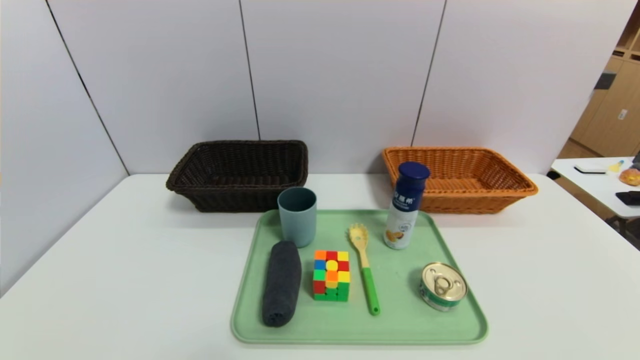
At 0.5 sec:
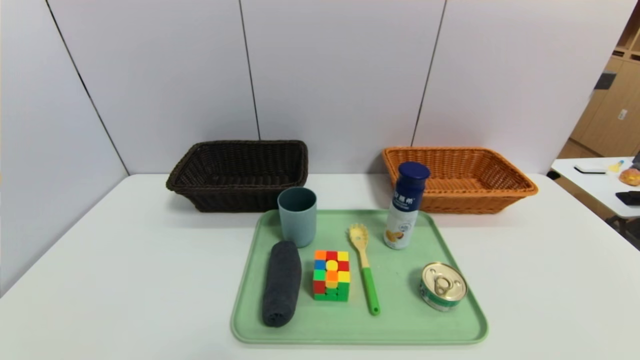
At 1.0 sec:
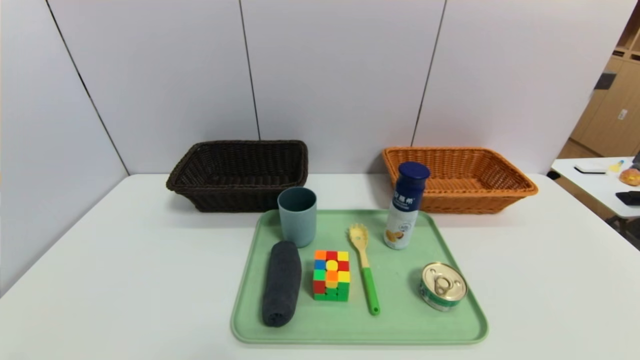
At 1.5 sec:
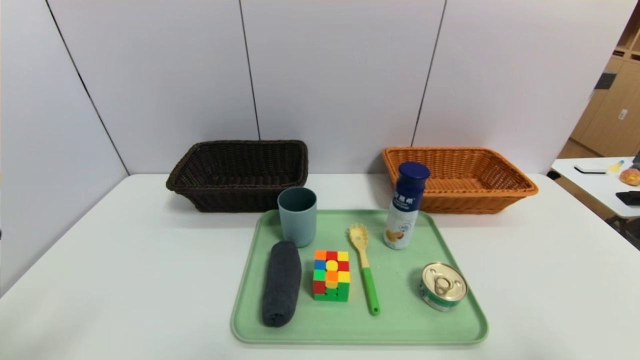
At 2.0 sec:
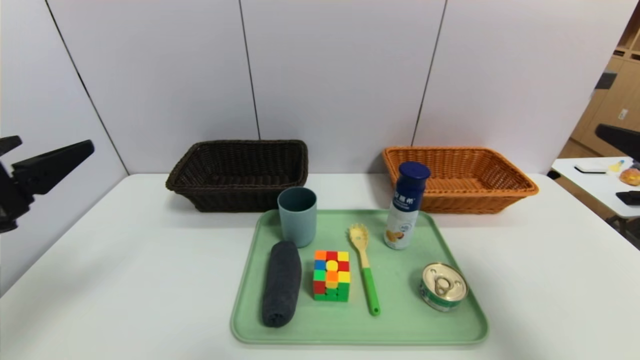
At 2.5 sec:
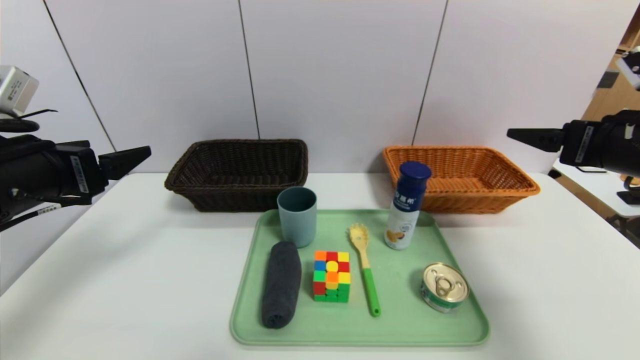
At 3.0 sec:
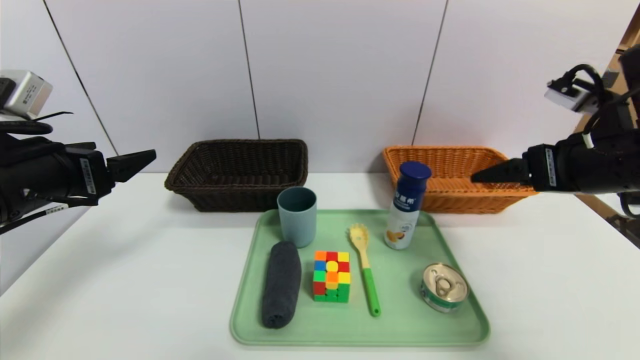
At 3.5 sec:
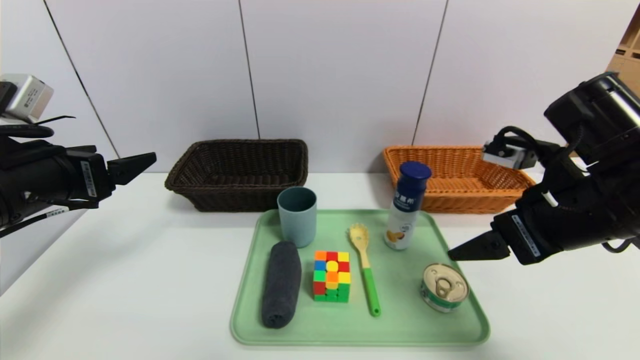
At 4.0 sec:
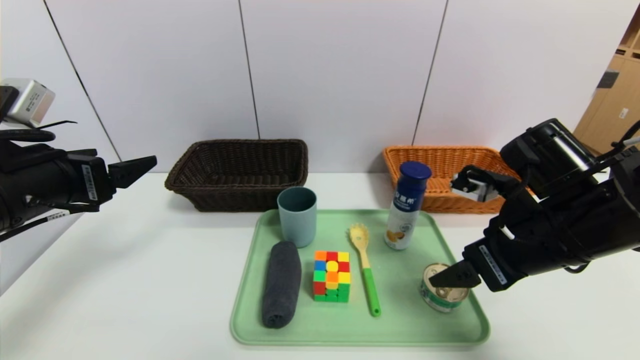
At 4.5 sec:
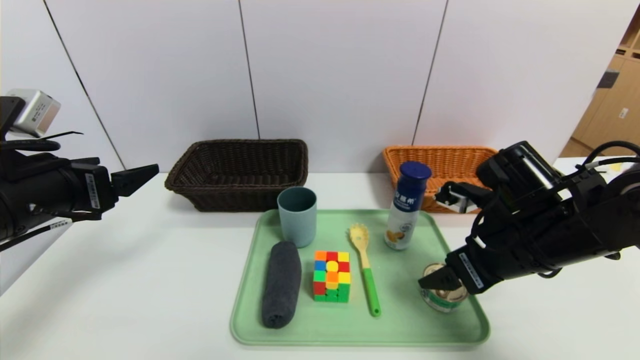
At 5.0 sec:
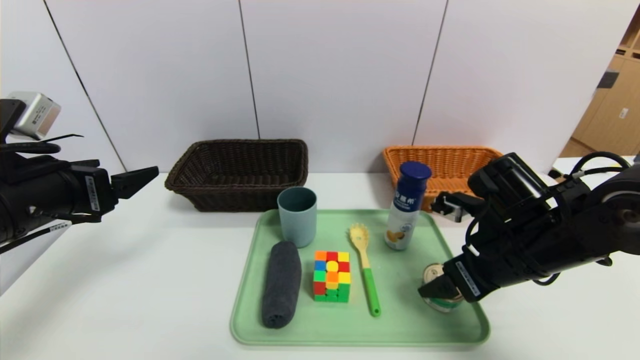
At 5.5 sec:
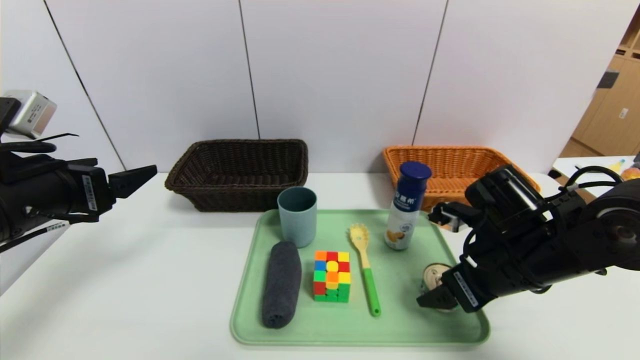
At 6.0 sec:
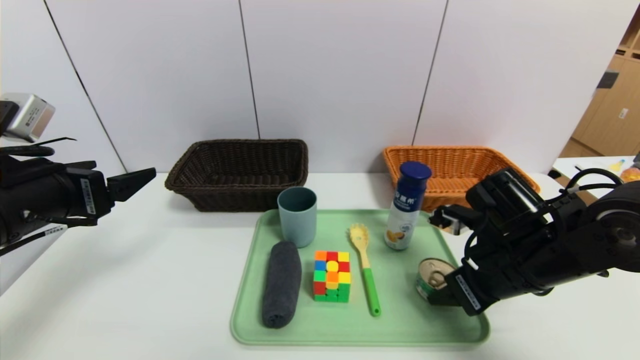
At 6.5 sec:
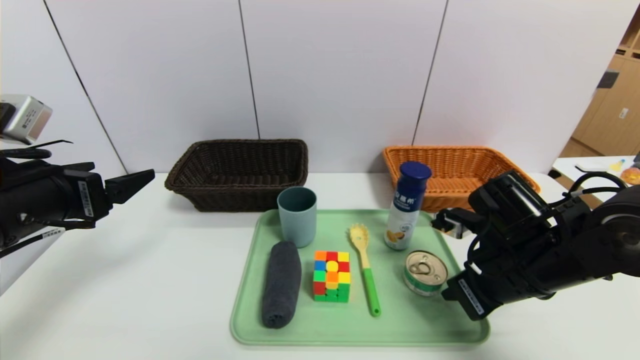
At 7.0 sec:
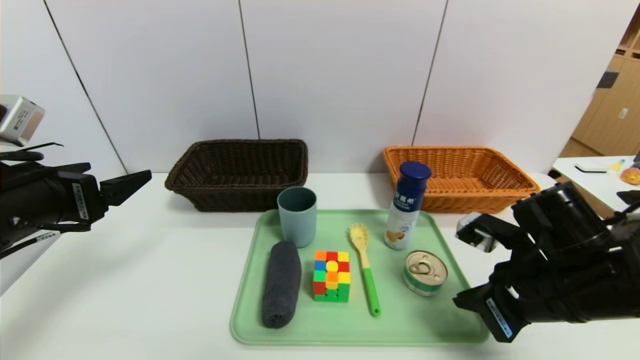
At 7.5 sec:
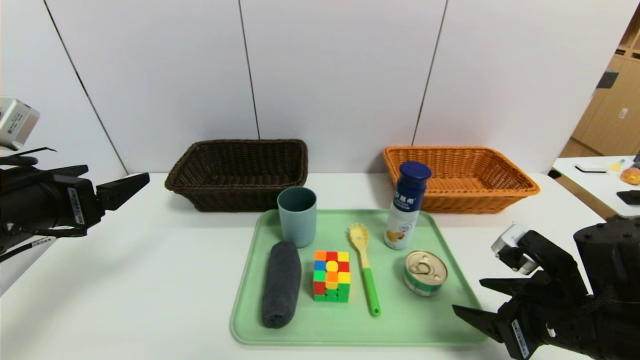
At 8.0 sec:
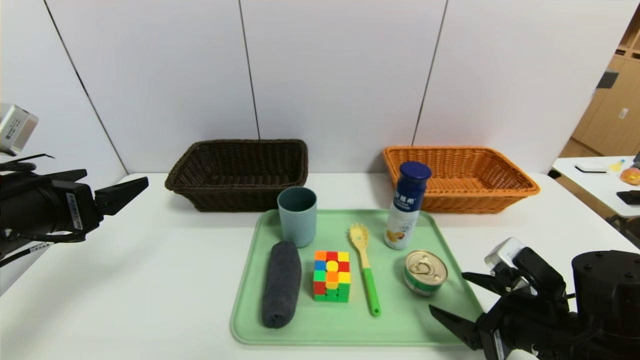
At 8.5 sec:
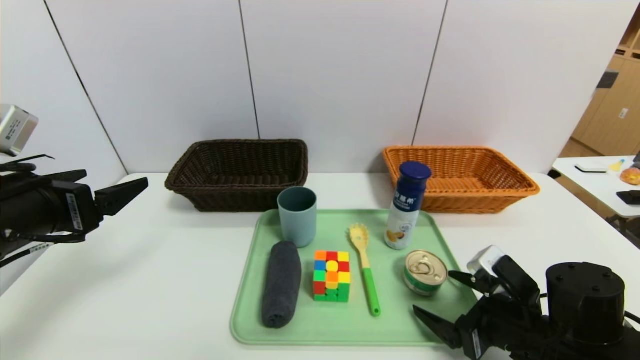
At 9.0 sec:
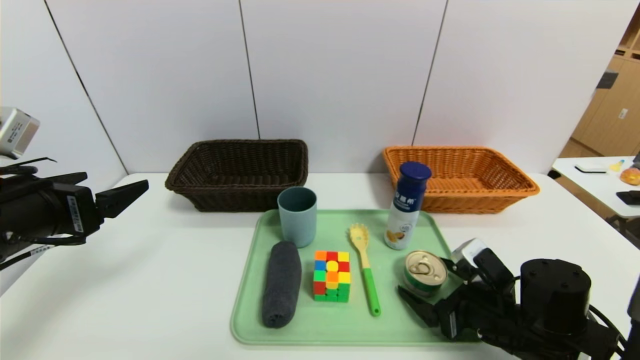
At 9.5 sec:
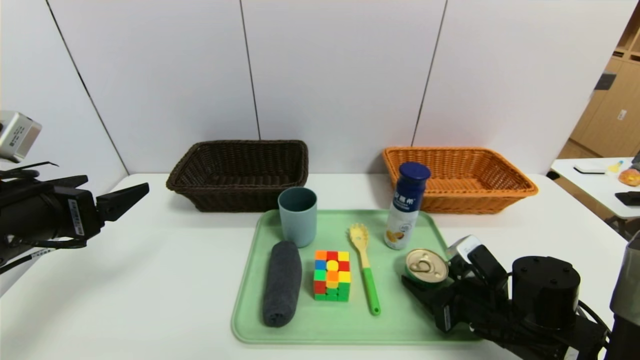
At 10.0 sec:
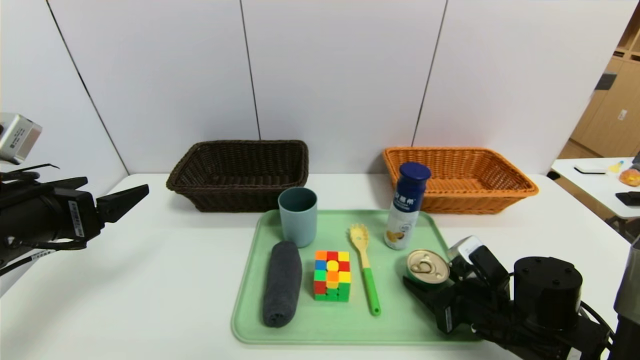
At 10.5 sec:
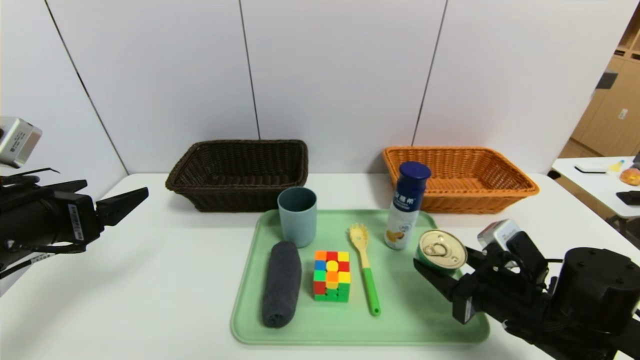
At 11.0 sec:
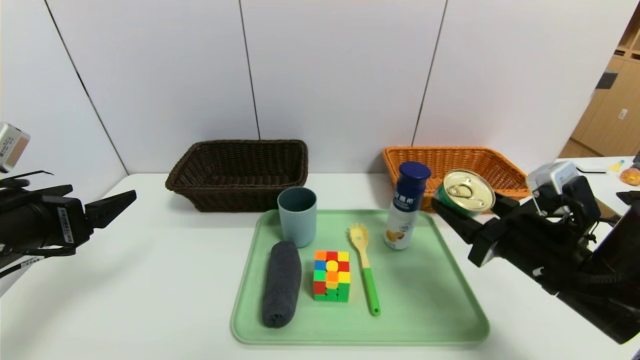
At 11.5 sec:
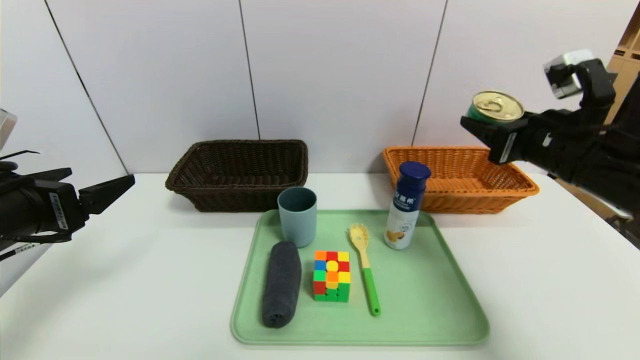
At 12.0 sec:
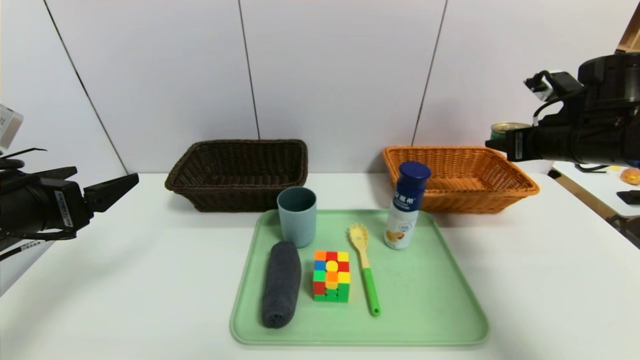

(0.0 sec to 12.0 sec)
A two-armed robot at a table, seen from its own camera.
Task of the whole recording: place the food in the right basket with the right gripper, and place the non food items in the left basket with the left gripper.
0.0 sec - 2.0 sec: The grippers both shift upward and forward by about 25 cm.
2.0 sec - 4.0 sec: The right gripper travels to the left, forward and downward by approximately 15 cm, while the left gripper moves forward, some 5 cm.
4.0 sec - 6.0 sec: The right gripper moves downward, some 5 cm, and closes.
6.0 sec - 8.0 sec: The right gripper is displaced backward by about 5 cm, and closes and opens again.
8.0 sec - 10.0 sec: The right gripper travels downward by roughly 5 cm.
10.0 sec - 12.0 sec: The right gripper is displaced upward, forward and to the right by some 25 cm.

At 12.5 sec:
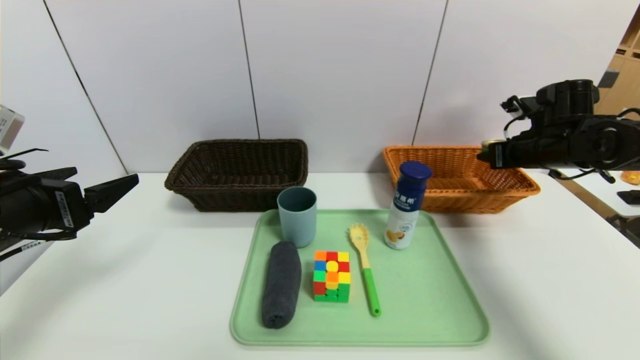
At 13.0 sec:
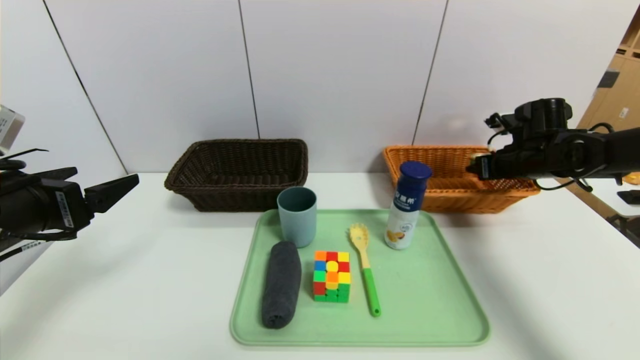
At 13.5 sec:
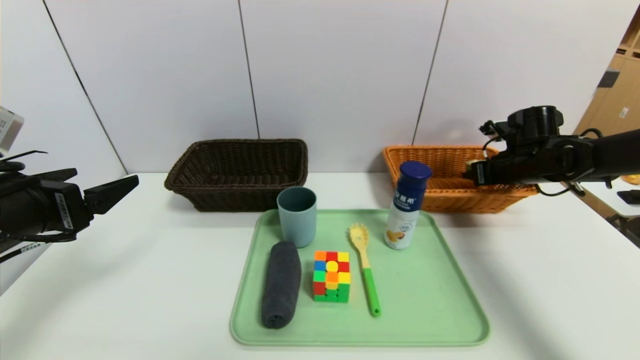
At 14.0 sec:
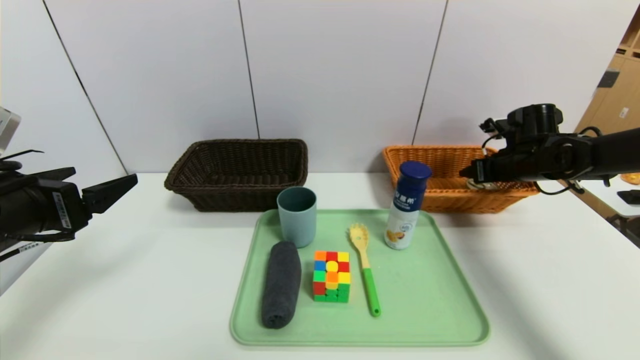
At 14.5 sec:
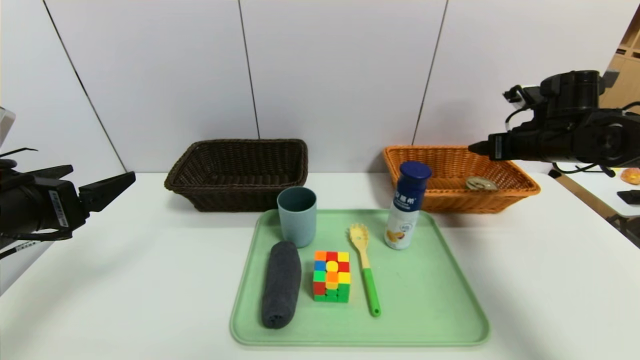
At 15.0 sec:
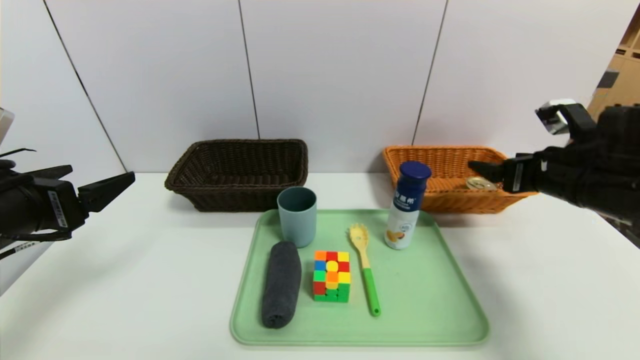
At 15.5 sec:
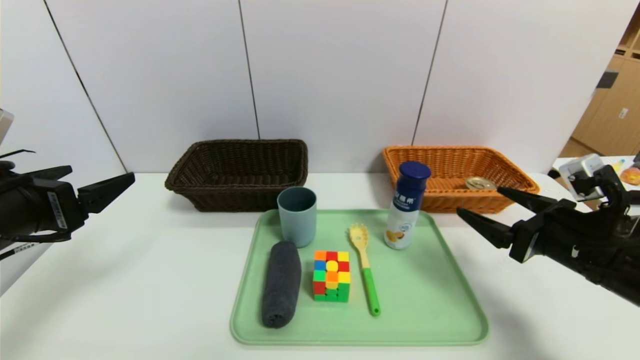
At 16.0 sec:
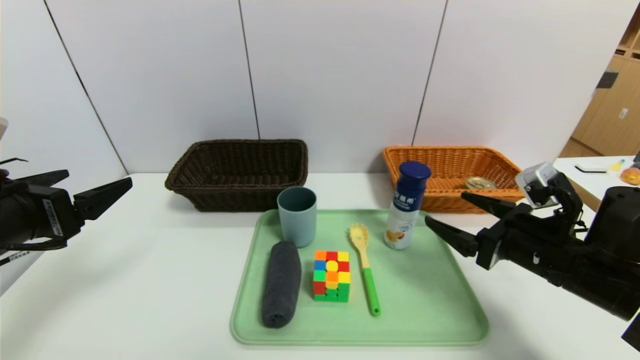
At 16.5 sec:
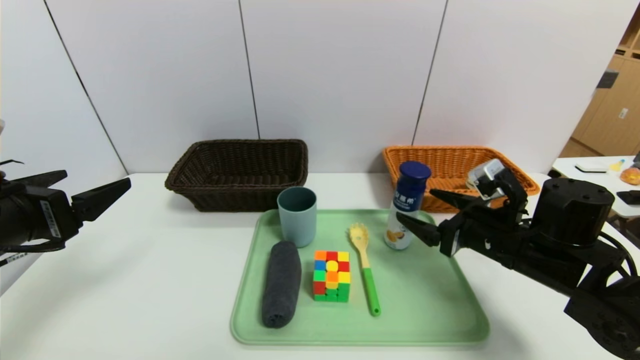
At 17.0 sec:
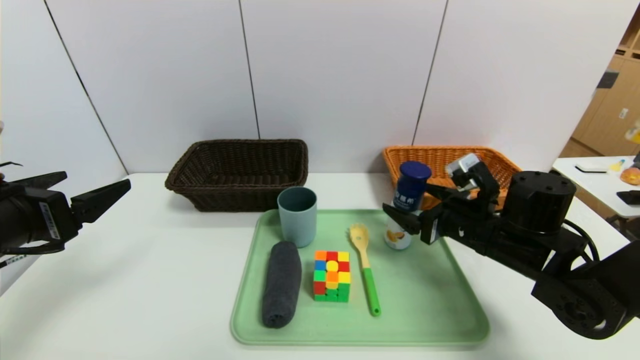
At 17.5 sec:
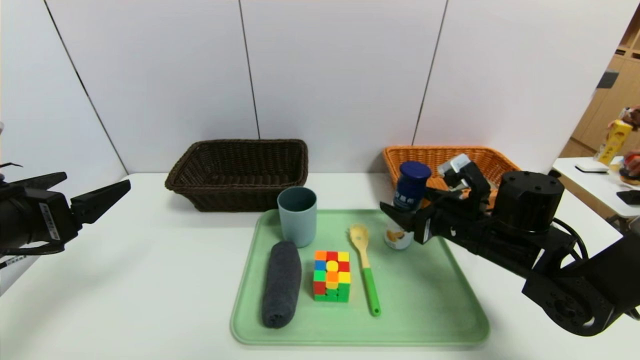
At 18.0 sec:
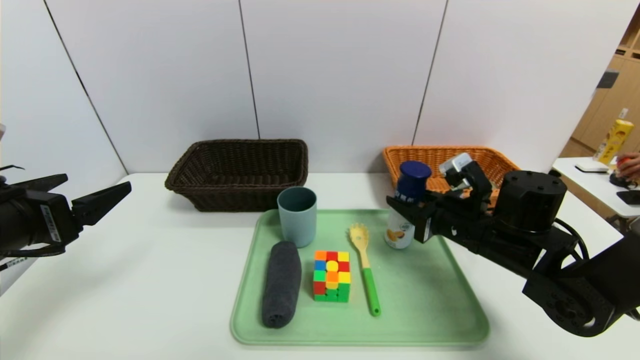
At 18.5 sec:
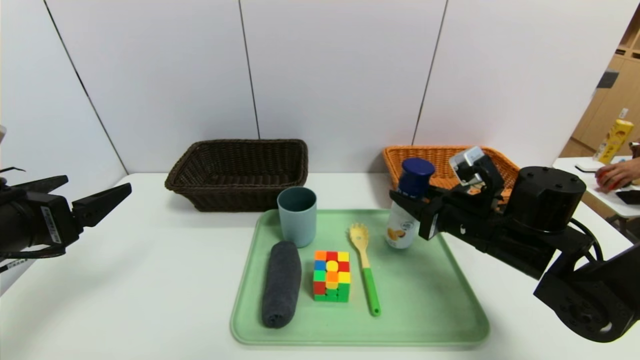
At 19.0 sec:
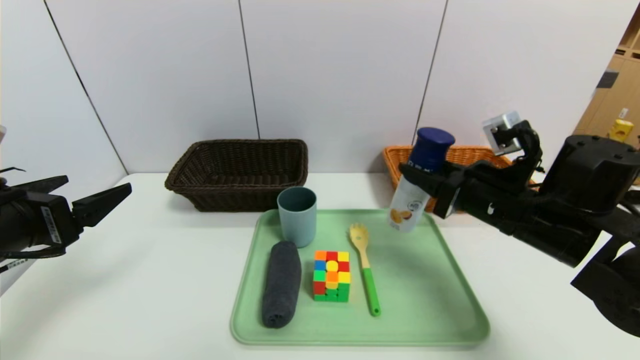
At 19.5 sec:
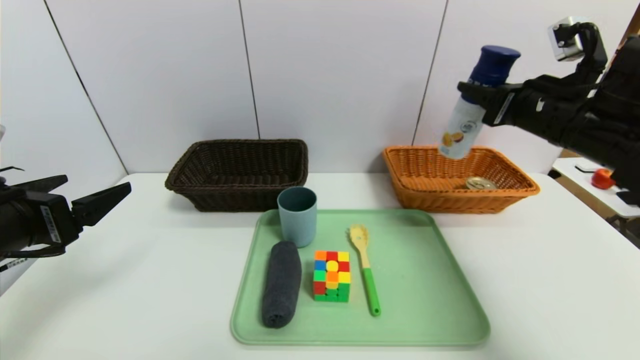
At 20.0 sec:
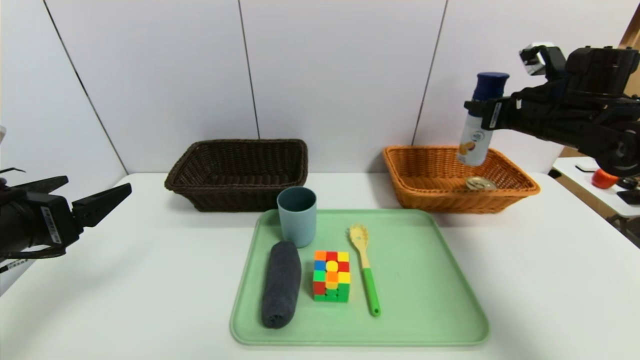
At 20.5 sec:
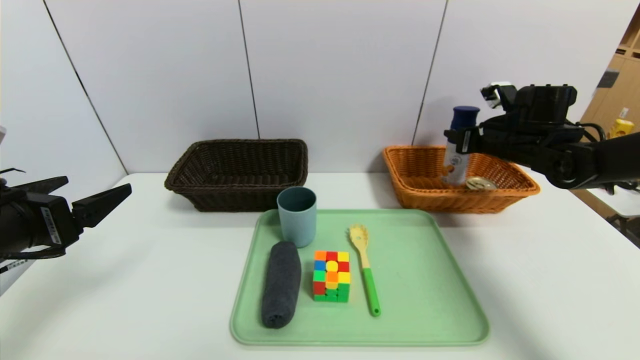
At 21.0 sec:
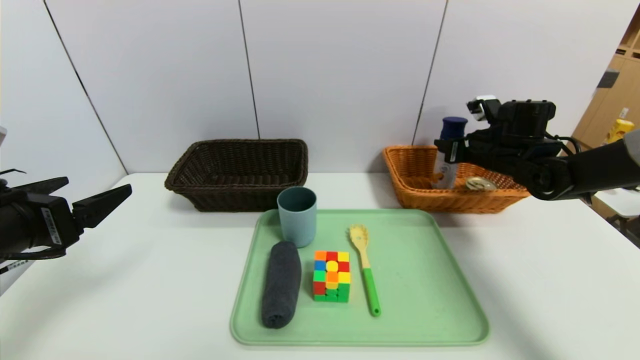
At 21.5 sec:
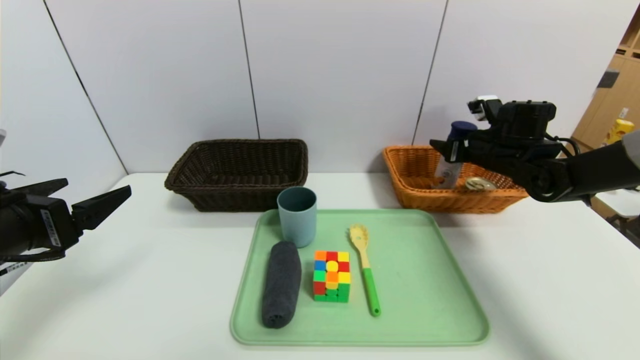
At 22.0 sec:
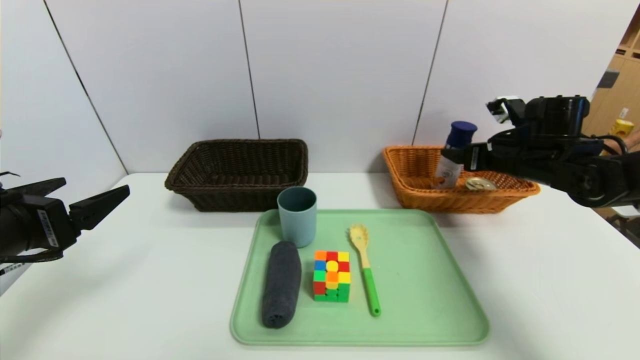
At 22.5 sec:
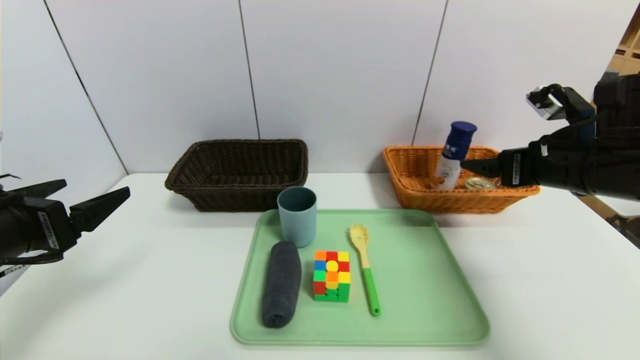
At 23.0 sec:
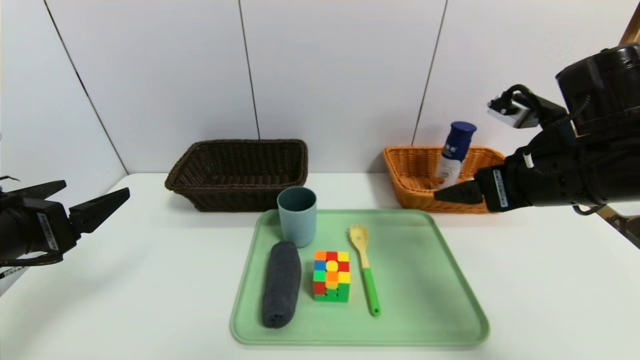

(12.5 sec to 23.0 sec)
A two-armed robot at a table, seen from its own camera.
Task of the whole recording: place the food in the right basket with the right gripper, and place the non food items in the left basket with the left gripper.
Step, 12.5 sec - 14.5 sec: Grasp the can and put it in the right basket.
Step, 15.0 sec - 22.0 sec: Grasp the yogurt and put it in the right basket.
12.5 sec - 14.5 sec: The right gripper opens its fingers.
14.5 sec - 16.5 sec: The right gripper travels backward, to the left and downward by about 20 cm.
16.5 sec - 19.0 sec: The right gripper travels upward by approximately 5 cm, and closes up.
19.0 sec - 21.0 sec: The right gripper travels forward and to the right by some 20 cm.
21.0 sec - 23.0 sec: The right gripper travels backward and upward by some 20 cm, and opens up.
